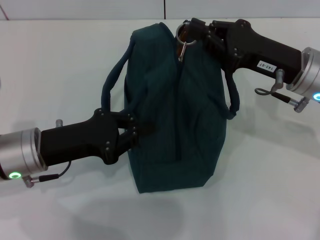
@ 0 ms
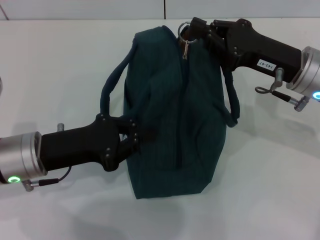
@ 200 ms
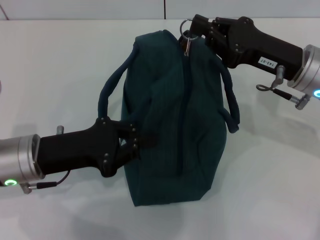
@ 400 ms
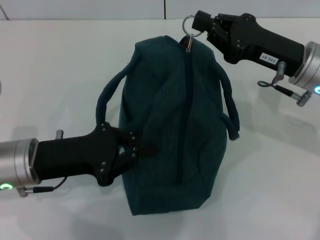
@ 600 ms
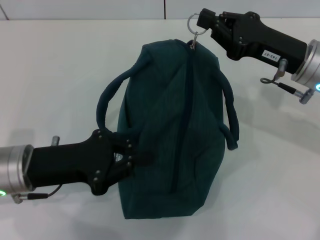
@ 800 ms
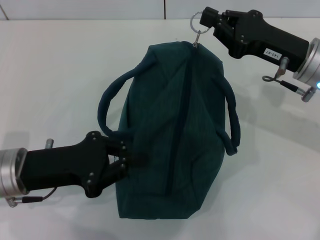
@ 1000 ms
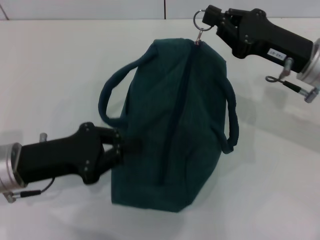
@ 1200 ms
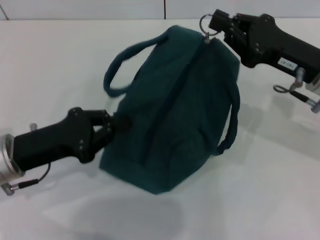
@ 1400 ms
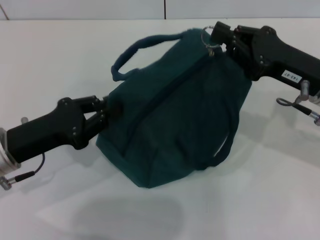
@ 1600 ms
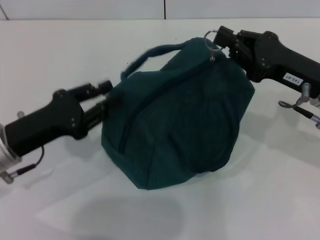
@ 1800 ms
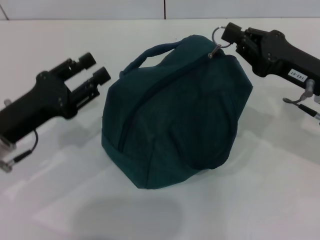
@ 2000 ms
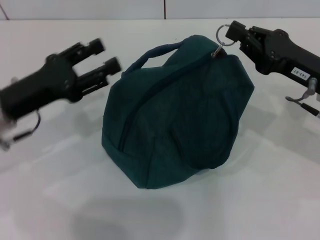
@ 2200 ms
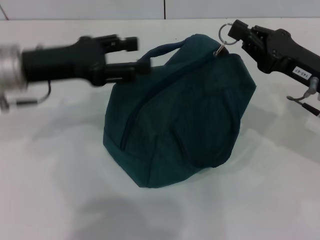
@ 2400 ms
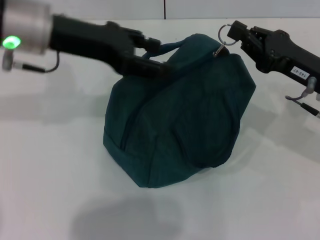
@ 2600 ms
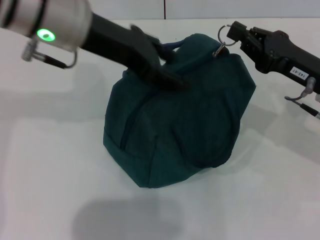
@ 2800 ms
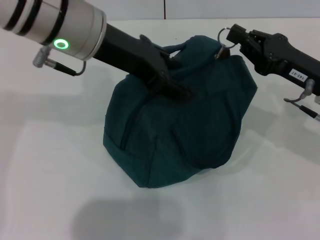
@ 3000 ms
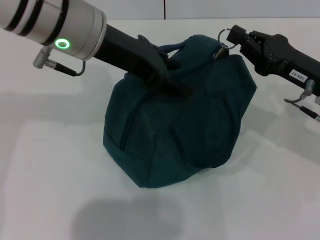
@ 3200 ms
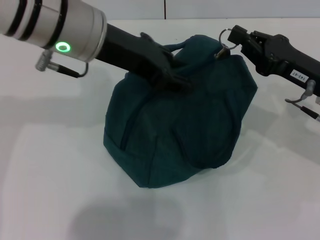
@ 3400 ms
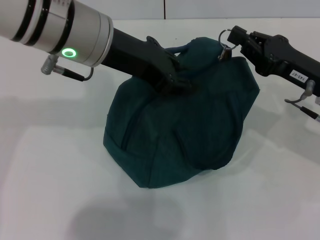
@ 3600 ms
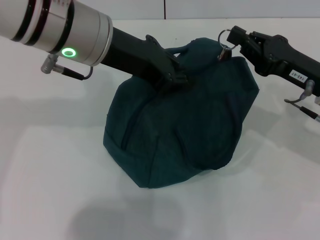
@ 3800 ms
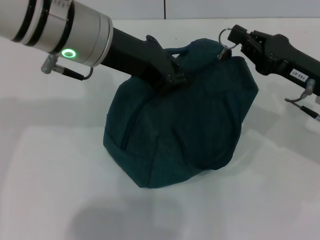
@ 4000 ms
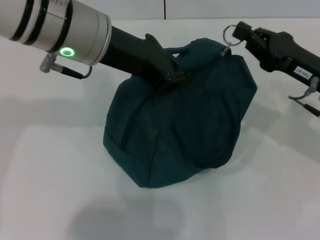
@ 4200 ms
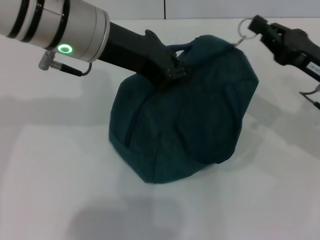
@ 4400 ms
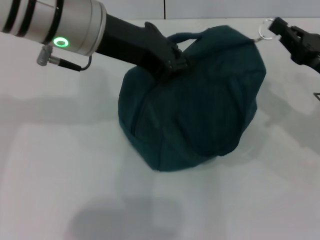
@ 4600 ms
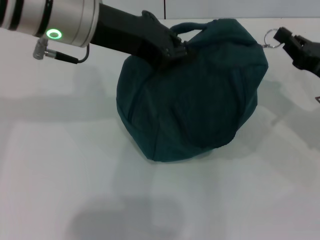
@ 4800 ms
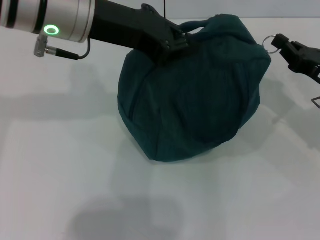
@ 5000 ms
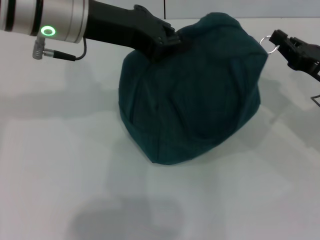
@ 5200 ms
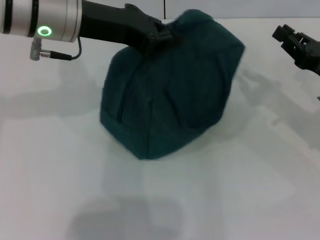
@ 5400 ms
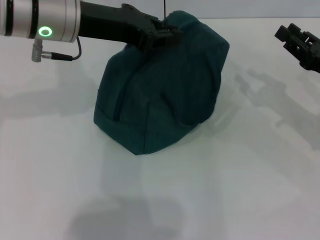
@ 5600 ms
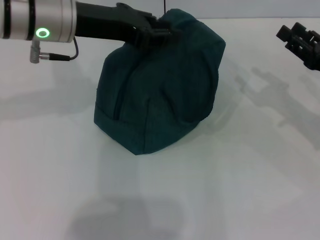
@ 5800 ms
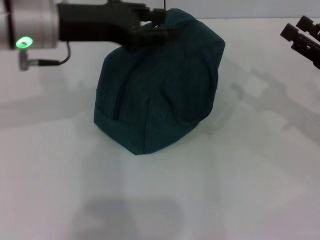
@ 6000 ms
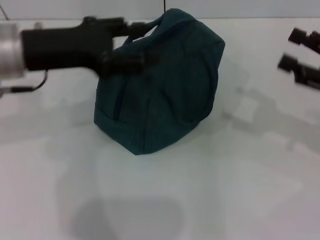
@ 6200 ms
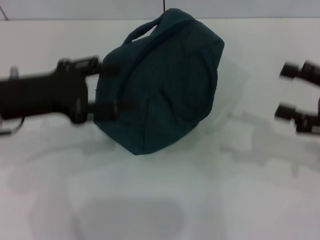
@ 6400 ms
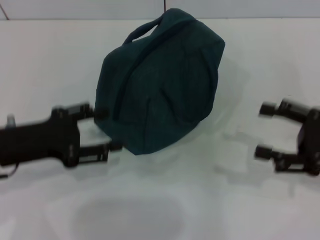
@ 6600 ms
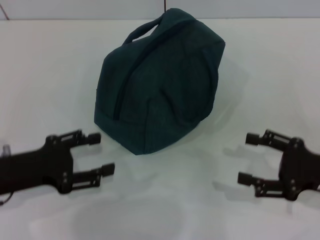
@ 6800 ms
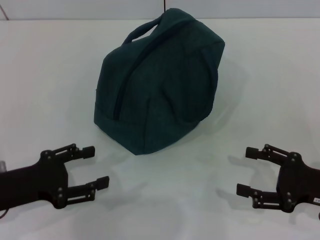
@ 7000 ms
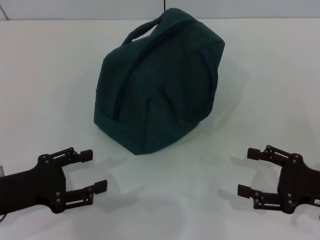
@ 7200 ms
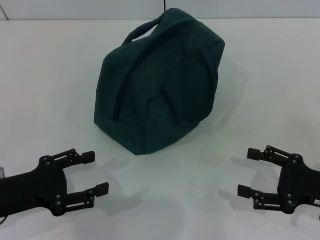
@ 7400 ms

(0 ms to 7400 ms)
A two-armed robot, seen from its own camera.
Step, 0 ms - 5200 ms: Zip up the lunch bag with your right hand.
Step, 5400 ms - 6000 ms: Hold the lunch bag with your left hand.
0 ms - 1400 ms: The grippers make only small movements.
1400 ms - 3000 ms: The left gripper goes roughly 25 cm upward, to the right and forward, and opens up.
3000 ms - 4400 ms: The left gripper closes.
4400 ms - 6000 ms: The right gripper heads to the right, covering roughly 5 cm, and opens; the left gripper goes roughly 5 cm to the left.
6000 ms - 7400 ms: The right gripper moves backward and downward, approximately 10 cm; the left gripper shifts approximately 25 cm backward, downward and to the left, and opens its fingers.
